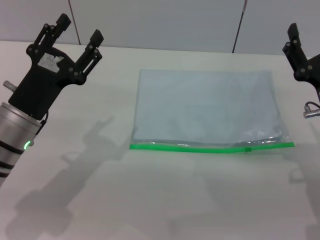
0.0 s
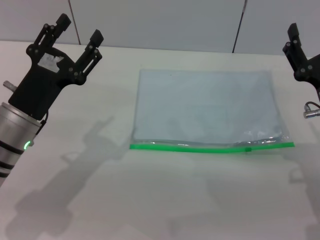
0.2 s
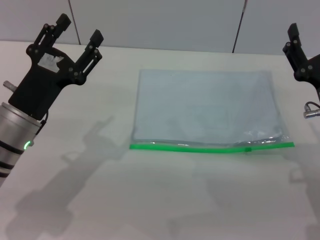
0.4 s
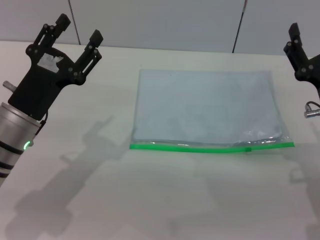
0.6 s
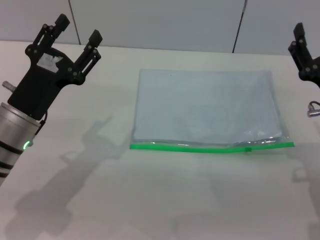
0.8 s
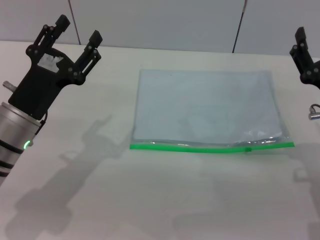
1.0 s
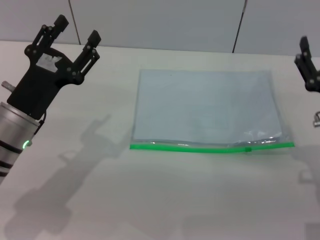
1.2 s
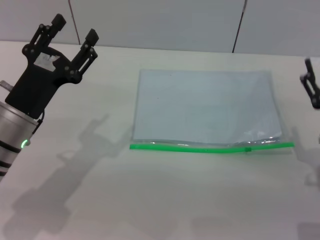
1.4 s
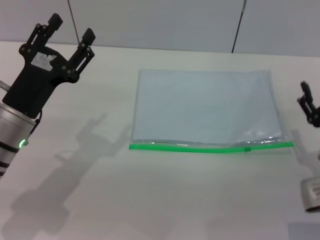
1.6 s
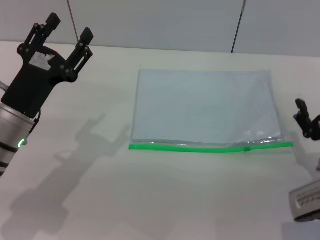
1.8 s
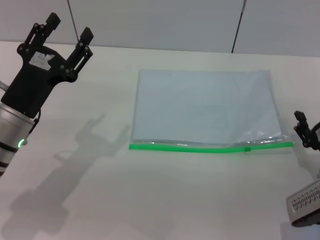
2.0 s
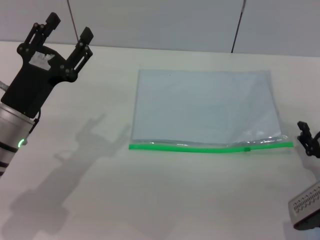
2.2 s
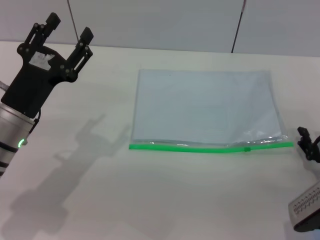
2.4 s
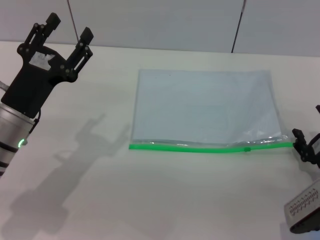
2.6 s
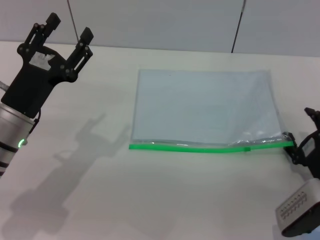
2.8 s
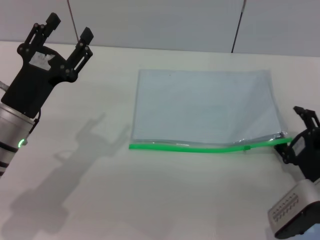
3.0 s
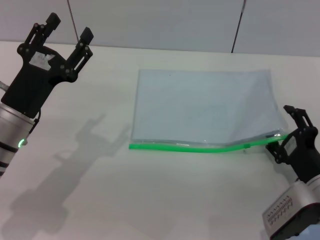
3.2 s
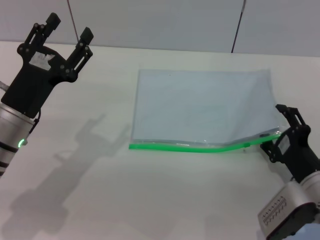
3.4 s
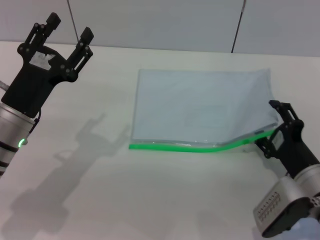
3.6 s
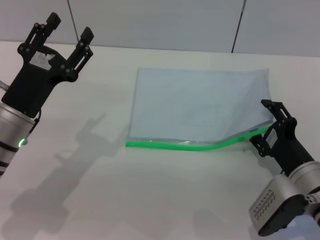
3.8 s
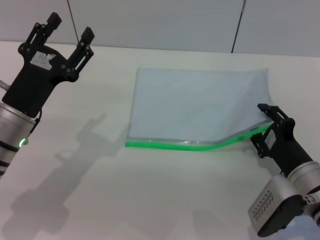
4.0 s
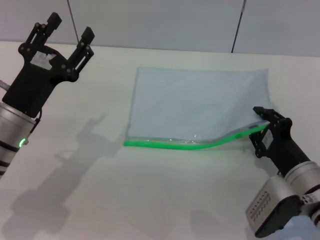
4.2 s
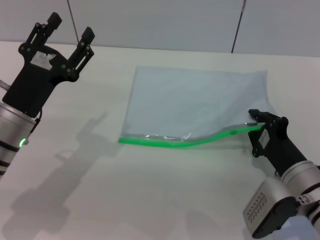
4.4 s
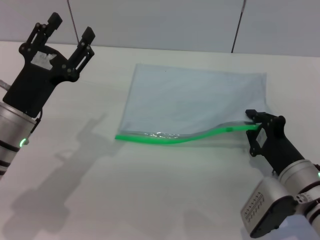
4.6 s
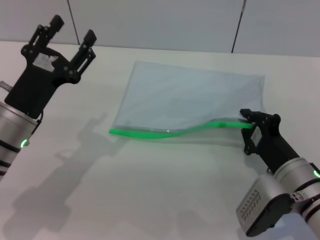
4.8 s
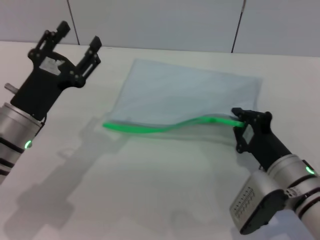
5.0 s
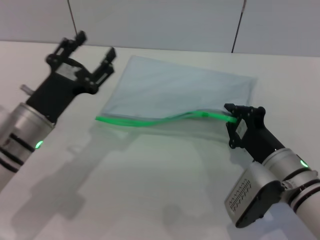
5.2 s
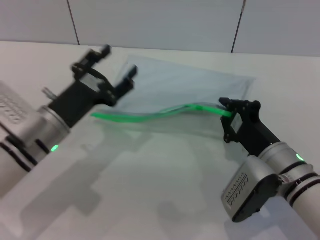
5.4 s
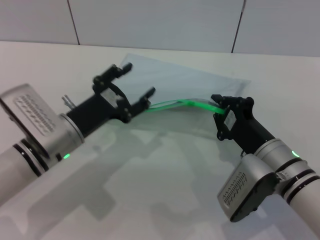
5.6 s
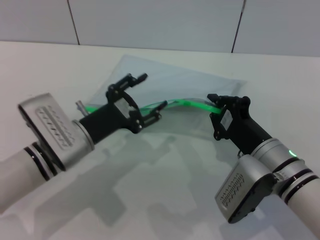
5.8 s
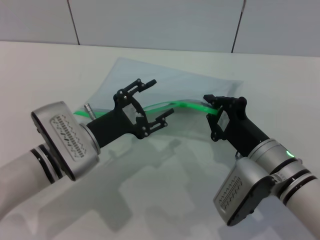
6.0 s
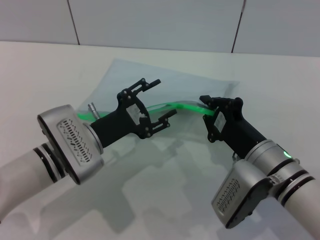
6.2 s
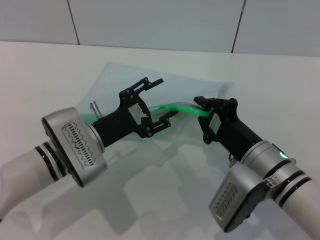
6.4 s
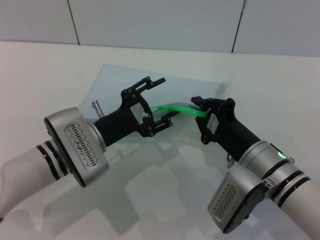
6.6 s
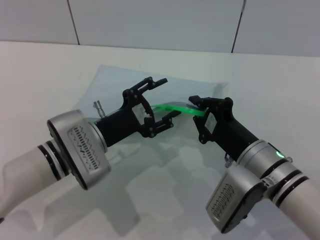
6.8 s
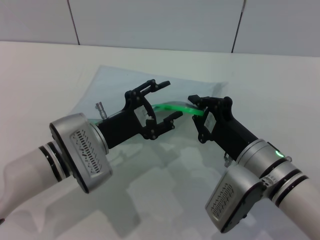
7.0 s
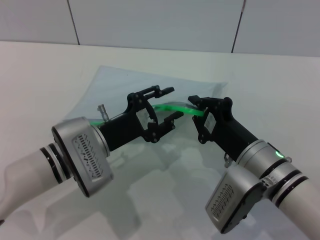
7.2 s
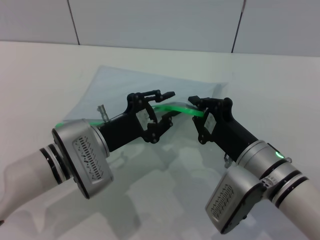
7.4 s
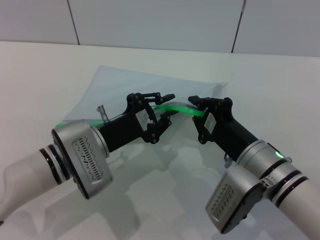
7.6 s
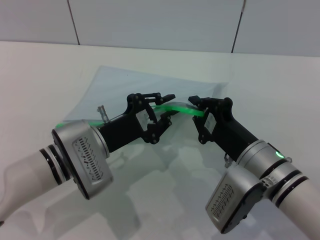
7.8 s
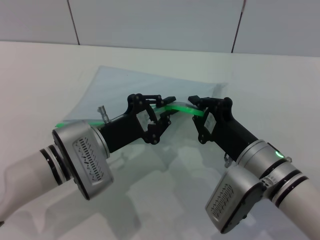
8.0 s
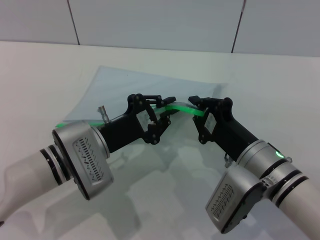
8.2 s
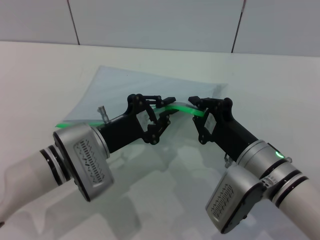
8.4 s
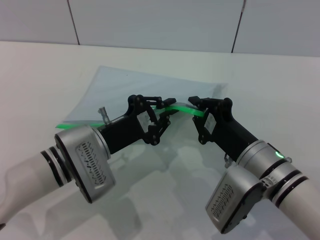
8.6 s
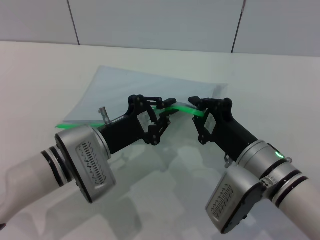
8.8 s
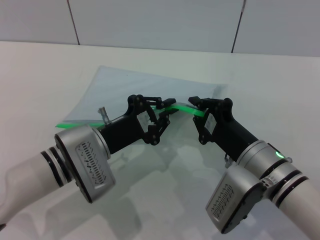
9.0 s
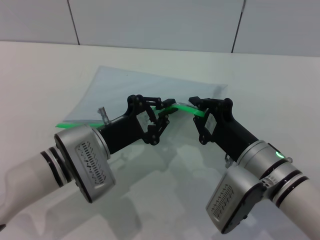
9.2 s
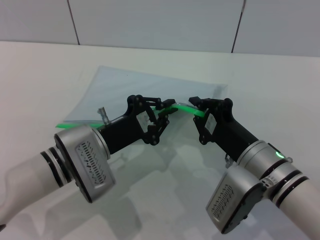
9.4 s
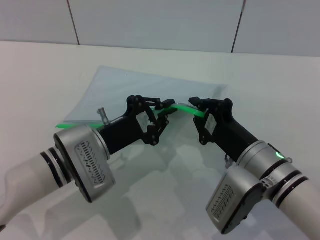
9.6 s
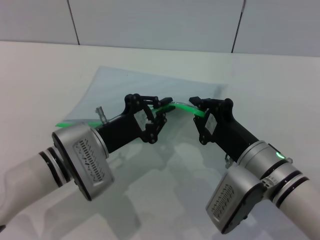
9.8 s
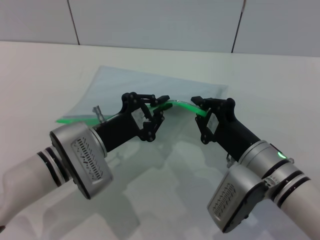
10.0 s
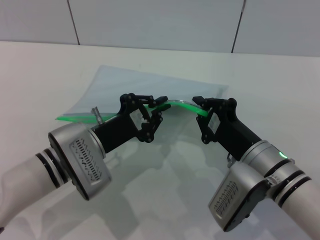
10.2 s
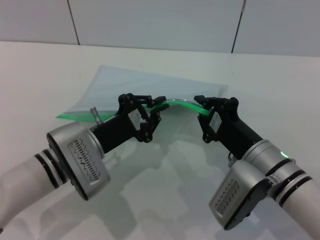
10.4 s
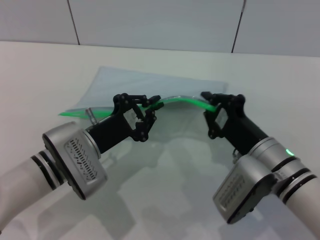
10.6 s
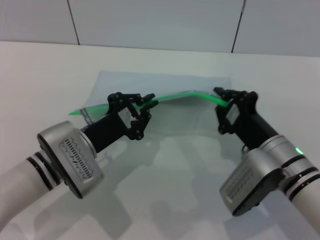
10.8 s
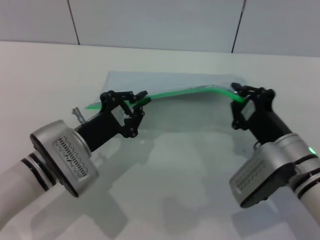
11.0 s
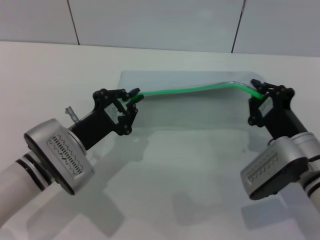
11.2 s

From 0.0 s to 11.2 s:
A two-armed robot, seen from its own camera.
Step, from 0.0 s to 5.2 s: Pick up the transparent plastic bag with the right gripper.
From 0.0 s to 1.6 s: The right gripper changes place by some 5 cm.
From 3.2 s to 4.8 s: The right gripper closes its fingers.
From 4.8 s to 6.4 s: The right gripper changes place by approximately 5 cm. Meanwhile the left gripper shifts roughly 5 cm to the right.
From 6.4 s to 8.0 s: The left gripper closes up.
From 8.0 s to 9.6 s: Both grippers stay put.
From 9.6 s to 11.2 s: The right gripper heads to the right, covering about 5 cm.

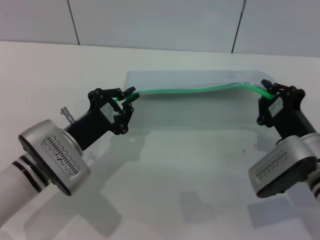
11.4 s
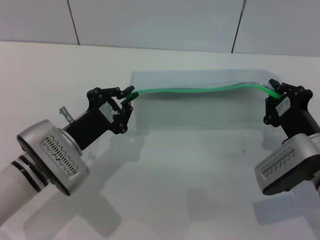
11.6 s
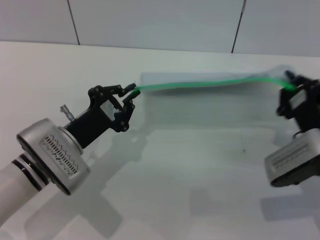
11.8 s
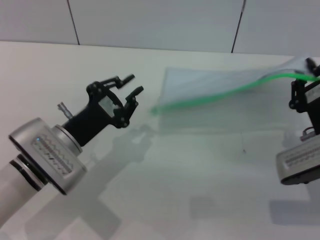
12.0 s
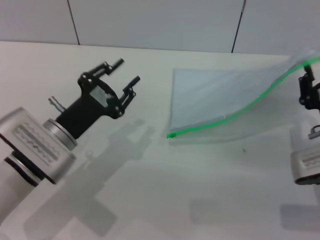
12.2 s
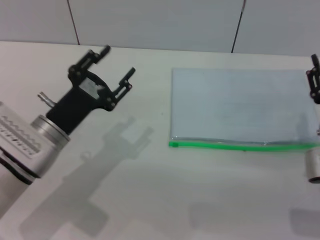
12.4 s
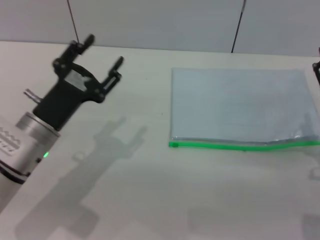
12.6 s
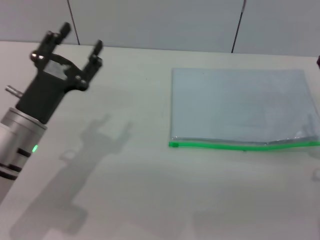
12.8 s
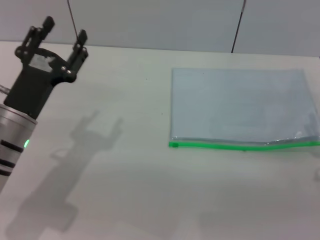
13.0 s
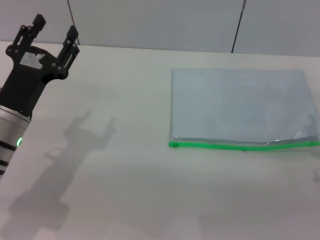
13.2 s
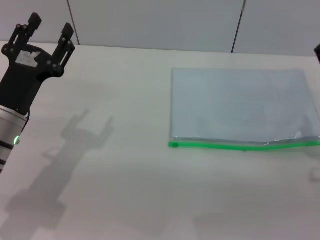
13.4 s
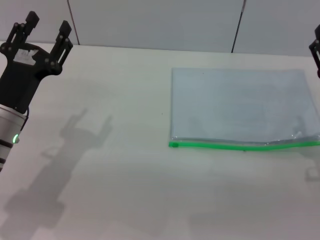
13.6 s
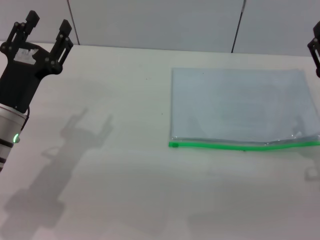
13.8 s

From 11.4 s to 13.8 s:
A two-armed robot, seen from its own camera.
Step, from 12.4 s to 12.8 s: Place the transparent plastic bag.
From 11.4 s to 12.6 s: The left gripper opens its fingers. The right gripper moves some 5 cm, and opens its fingers.
